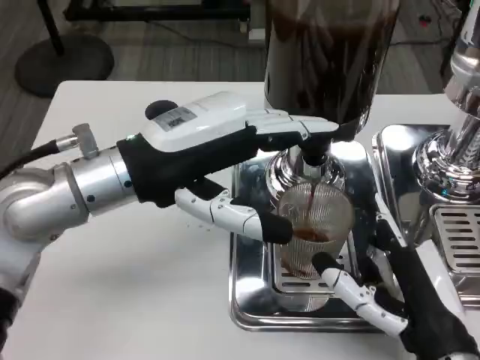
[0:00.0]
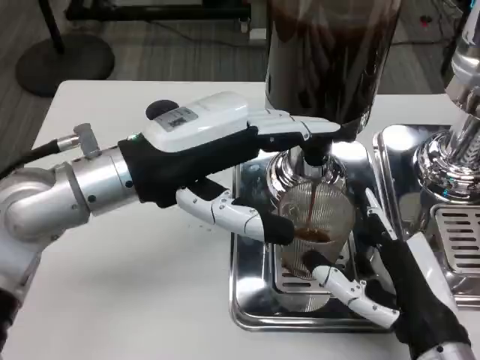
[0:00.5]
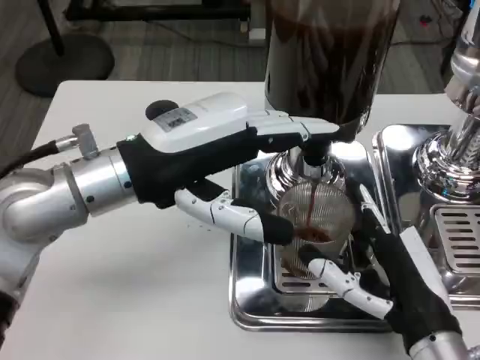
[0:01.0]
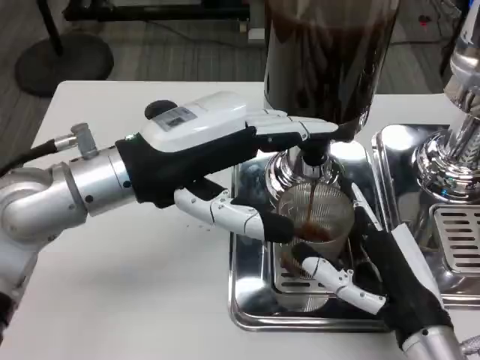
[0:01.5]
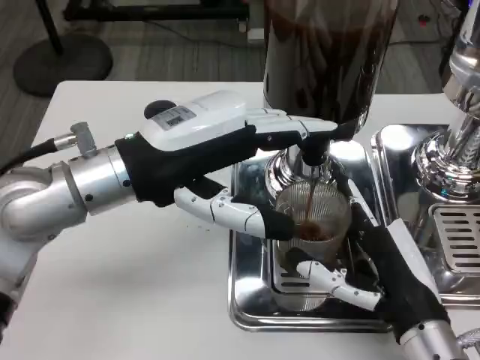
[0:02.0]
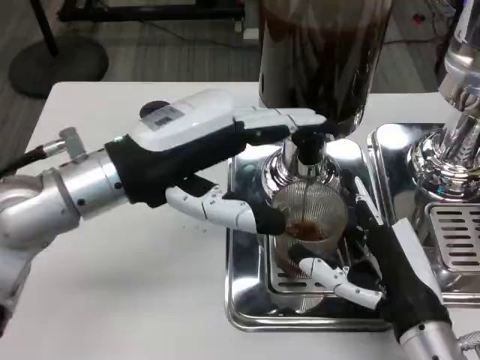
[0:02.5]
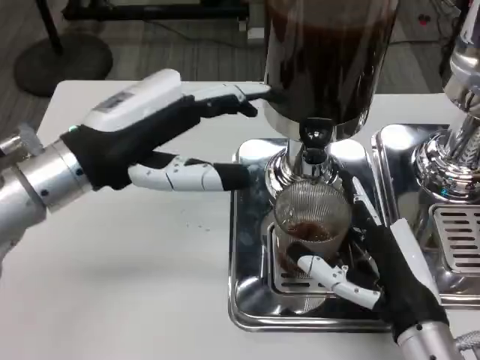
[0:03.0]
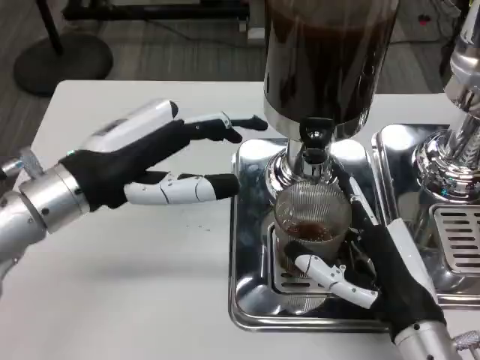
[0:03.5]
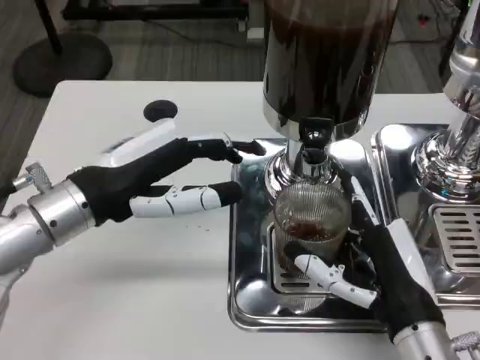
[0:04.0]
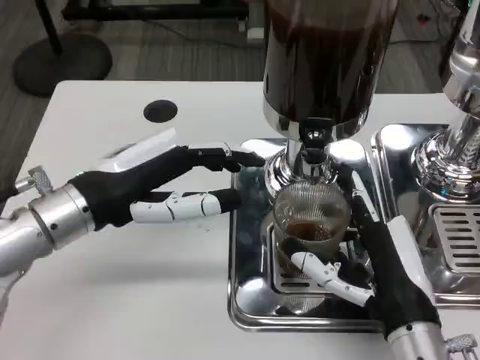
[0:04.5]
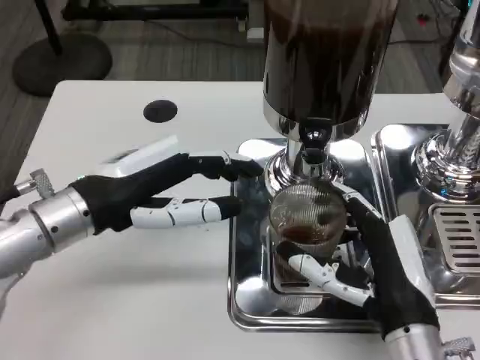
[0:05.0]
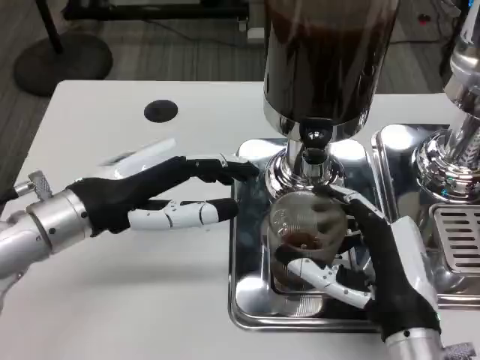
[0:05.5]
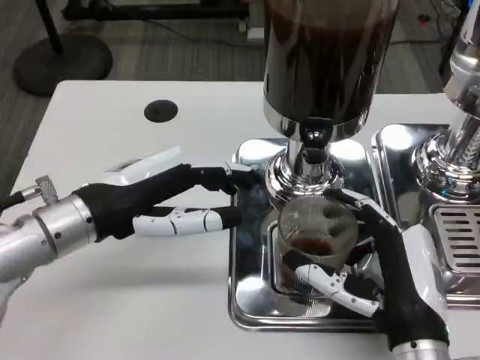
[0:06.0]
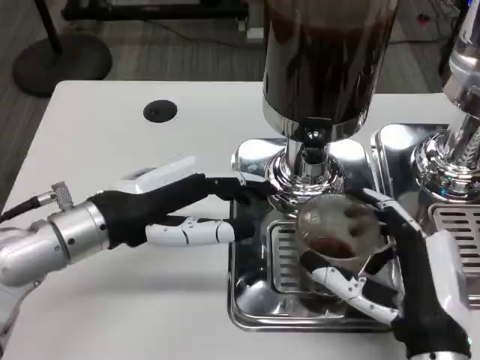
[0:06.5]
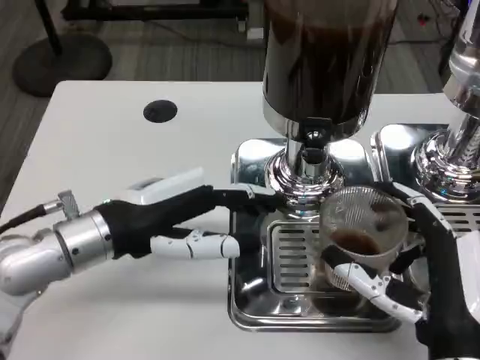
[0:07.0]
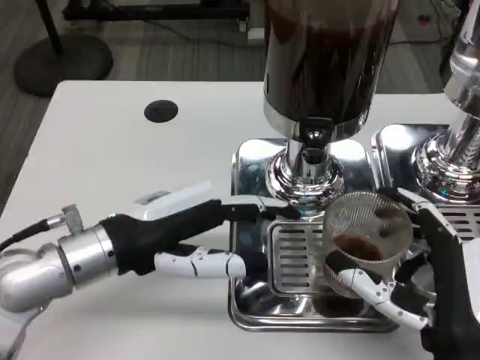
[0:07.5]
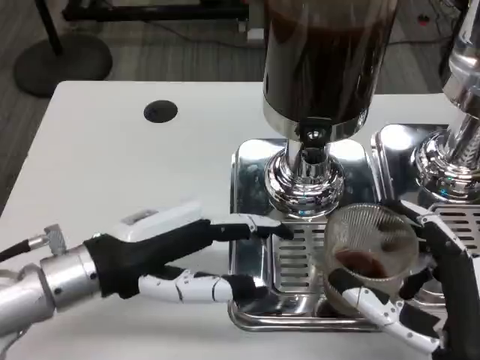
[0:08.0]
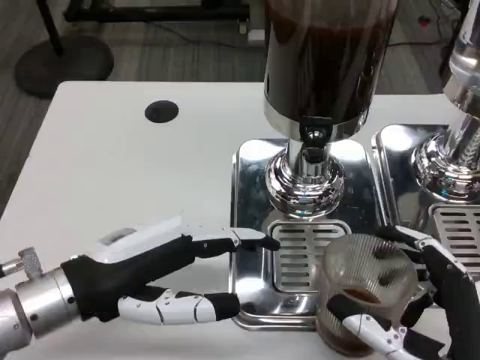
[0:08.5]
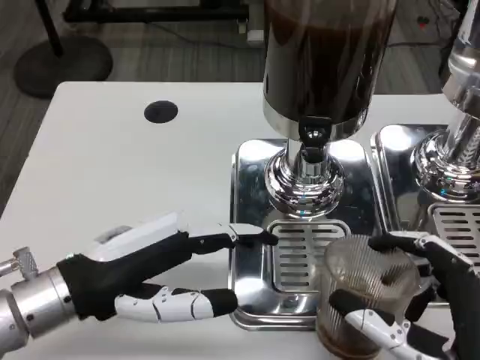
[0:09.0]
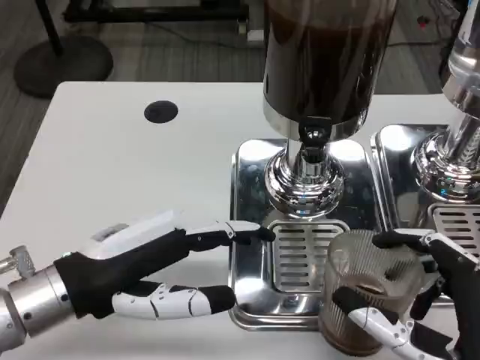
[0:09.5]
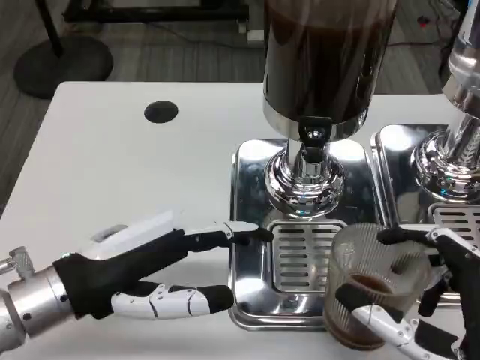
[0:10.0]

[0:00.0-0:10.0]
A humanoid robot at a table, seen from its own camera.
Task of the whole recording: Grasp the cup under the faucet to collect the drink, then remove the cup.
0:00.0 to 0:02.0: There are only small adjustments of the hands.
0:02.0 to 0:04.0: The left hand changes place by approximately 5 cm.
0:06.0 to 0:08.0: The right hand travels backward by roughly 5 cm.

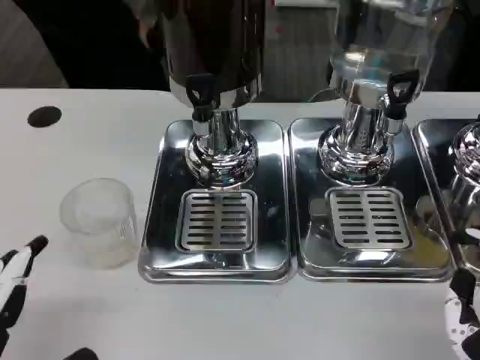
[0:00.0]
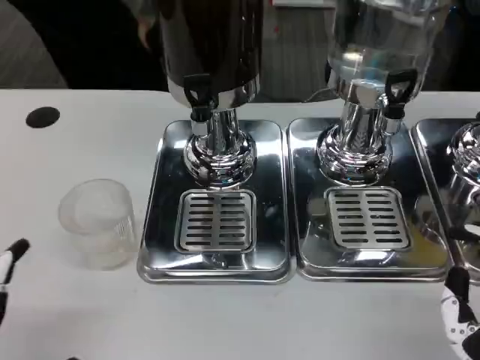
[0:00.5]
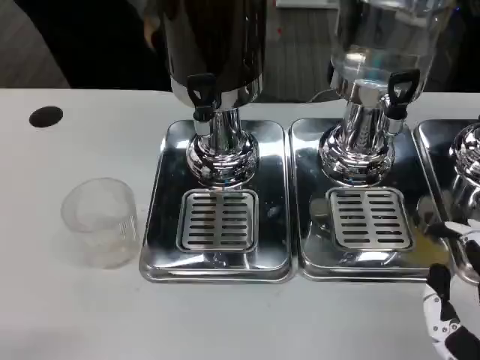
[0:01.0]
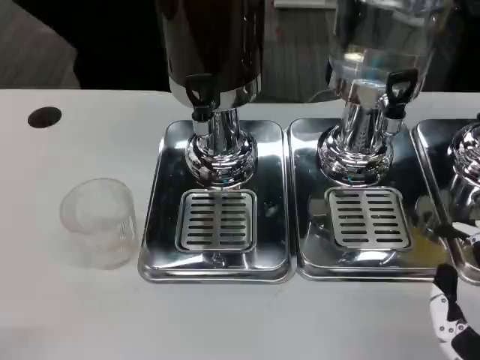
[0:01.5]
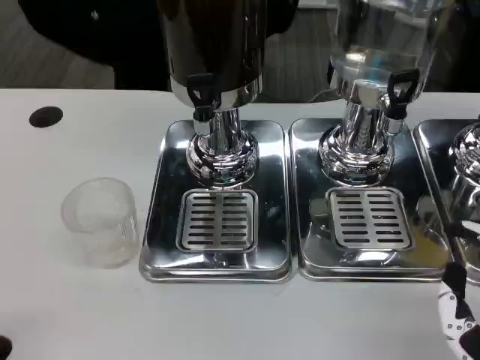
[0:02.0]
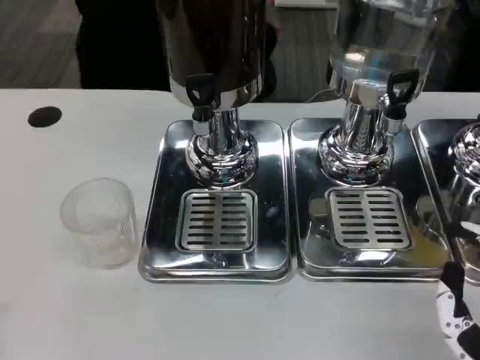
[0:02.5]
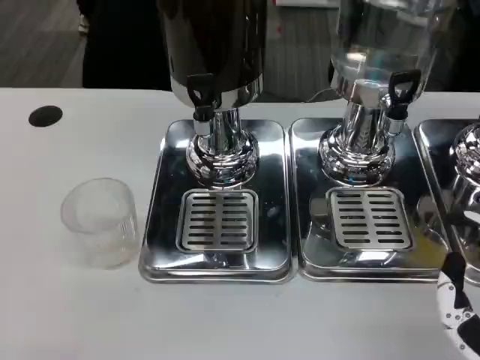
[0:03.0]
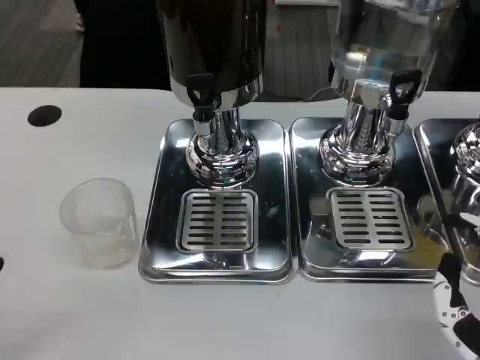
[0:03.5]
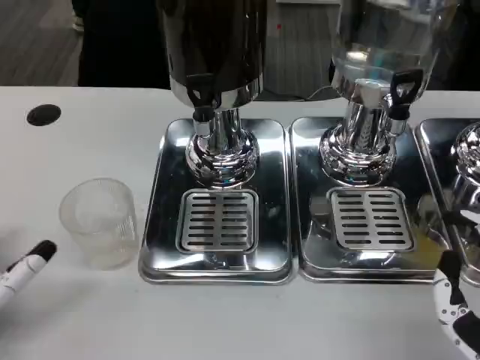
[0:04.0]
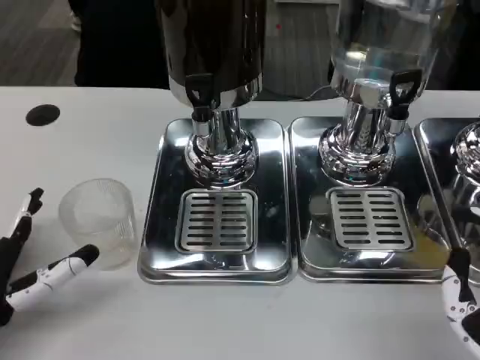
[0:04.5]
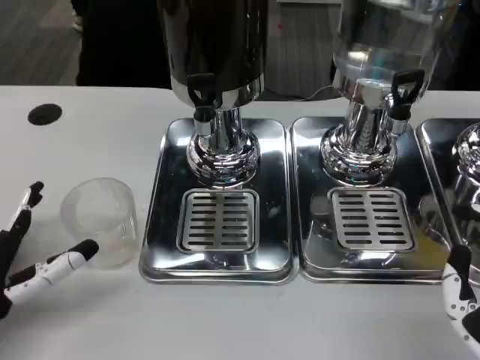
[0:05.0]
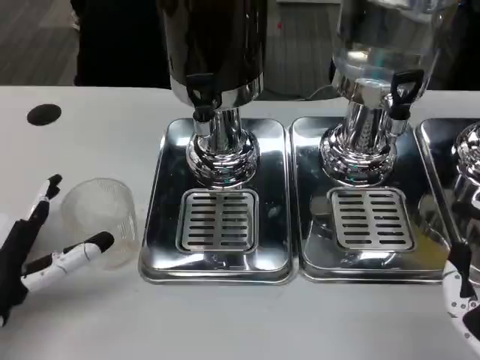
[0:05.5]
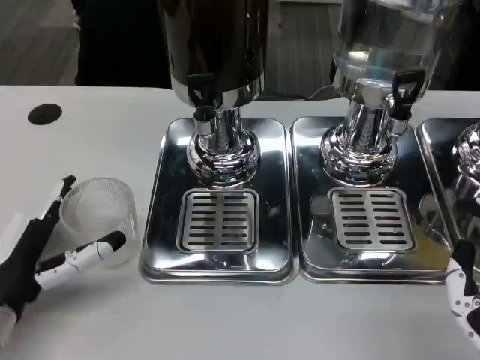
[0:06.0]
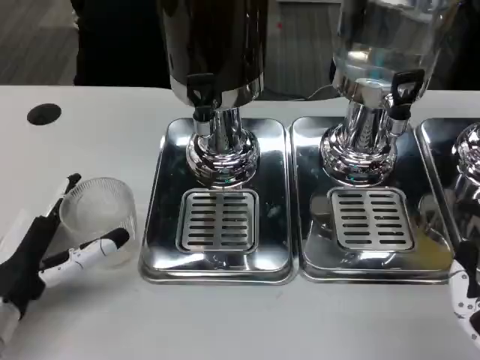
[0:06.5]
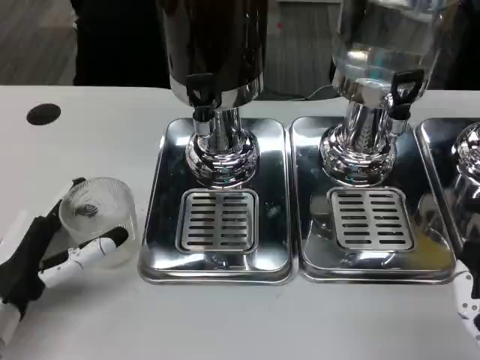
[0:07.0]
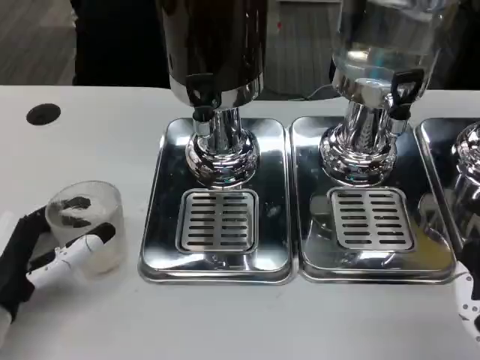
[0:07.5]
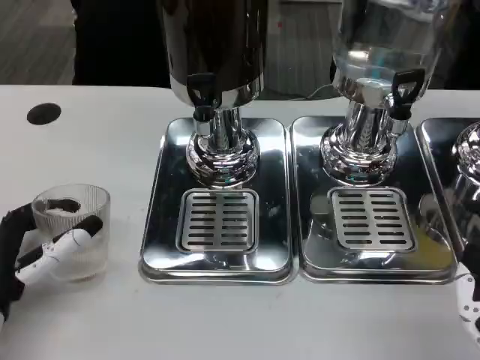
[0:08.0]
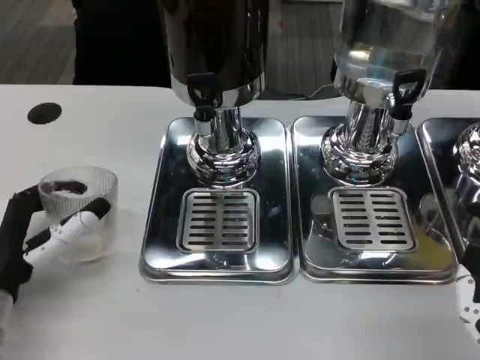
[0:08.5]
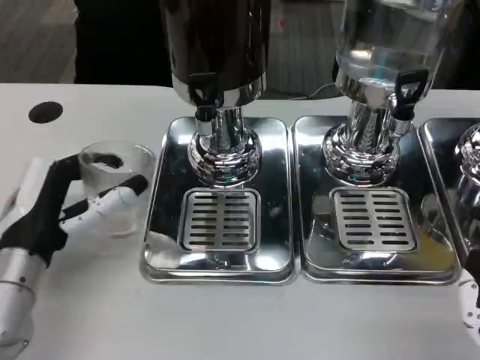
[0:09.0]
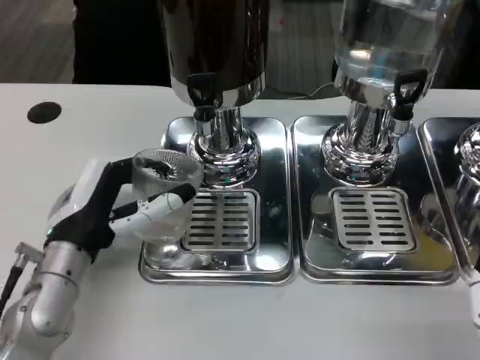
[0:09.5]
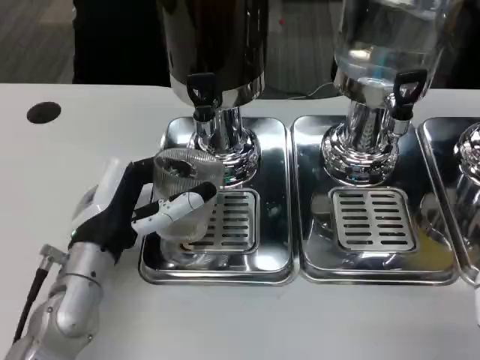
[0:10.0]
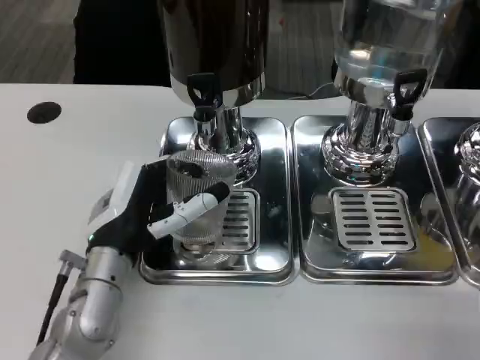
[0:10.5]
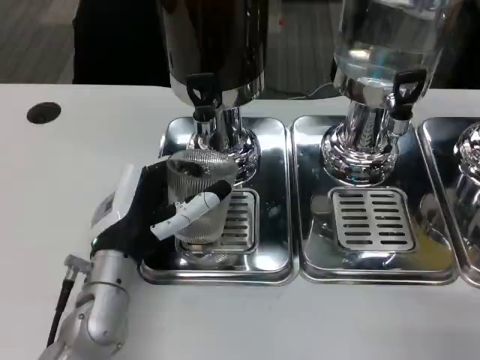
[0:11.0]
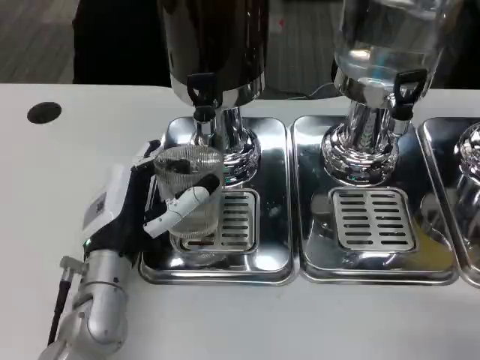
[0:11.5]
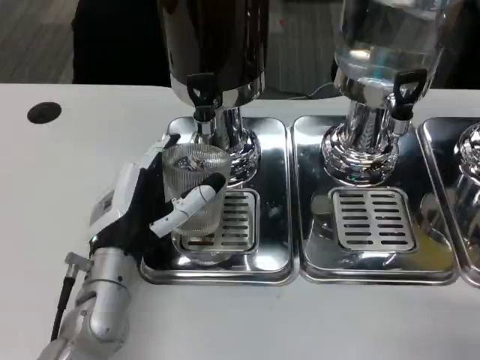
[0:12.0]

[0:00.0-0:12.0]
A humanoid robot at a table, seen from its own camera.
Task of the whole recording: Grasp the cup under the faucet to collect the drink, then remove the cup.
0:02.0 to 0:04.0: The left hand moves forward, roughly 15 cm.
0:04.0 to 0:06.0: The left hand moves roughly 5 cm.
0:06.0 to 0:08.0: The hands stay close to where they were, moving slightly.
0:08.0 to 0:10.0: The left hand is displaced to the right and forward by about 10 cm.
0:10.0 to 0:12.0: The hands make only small movements.

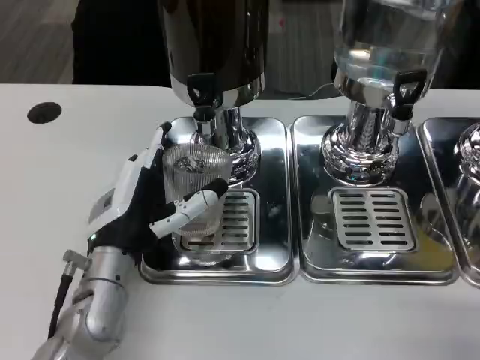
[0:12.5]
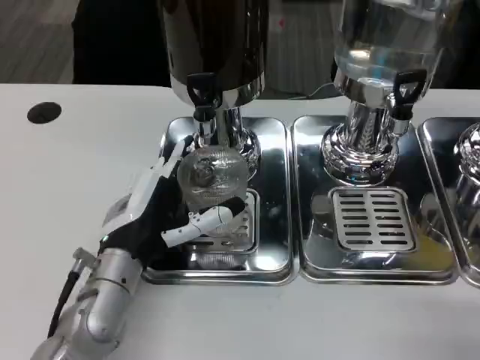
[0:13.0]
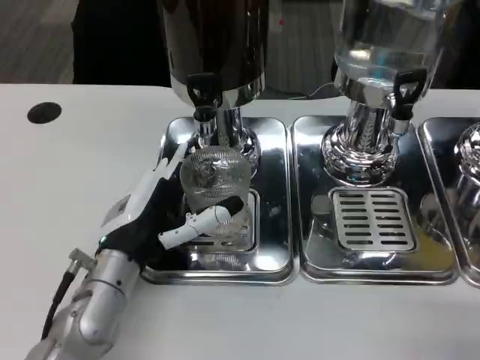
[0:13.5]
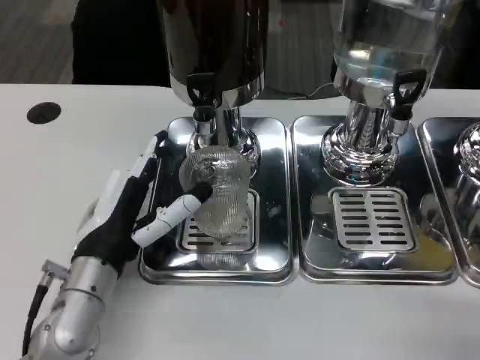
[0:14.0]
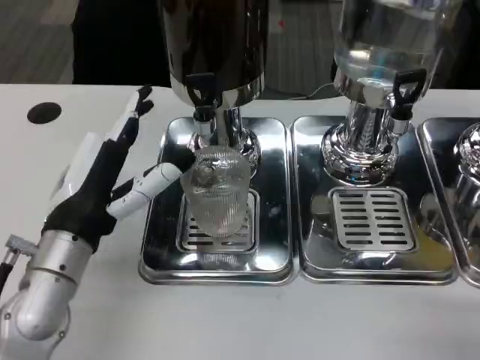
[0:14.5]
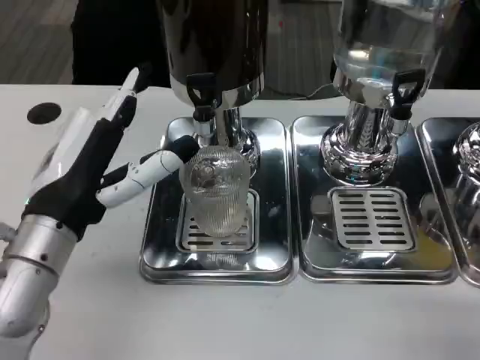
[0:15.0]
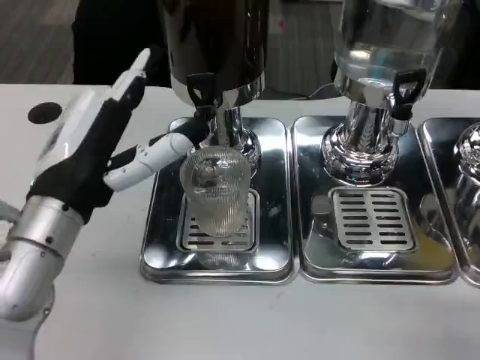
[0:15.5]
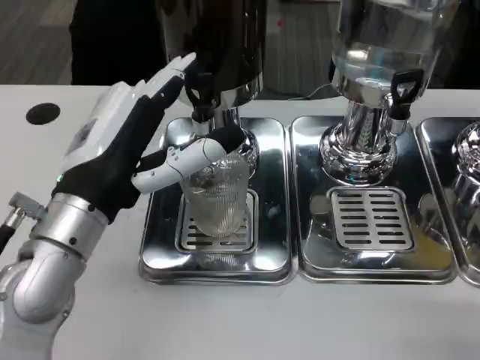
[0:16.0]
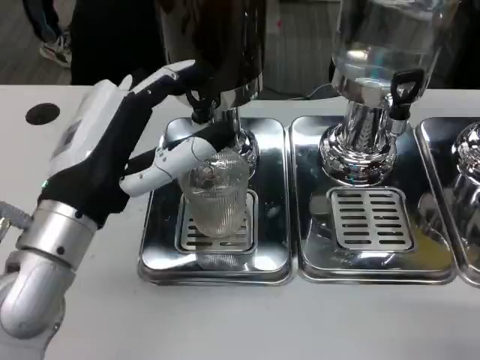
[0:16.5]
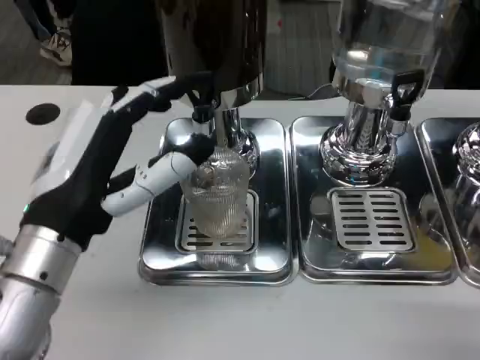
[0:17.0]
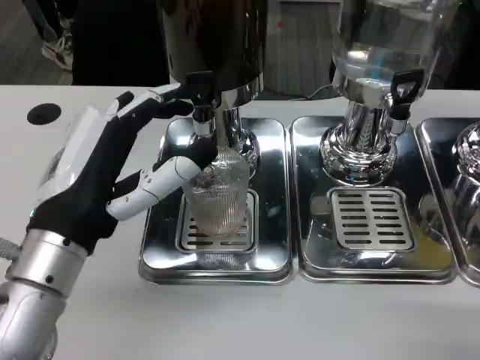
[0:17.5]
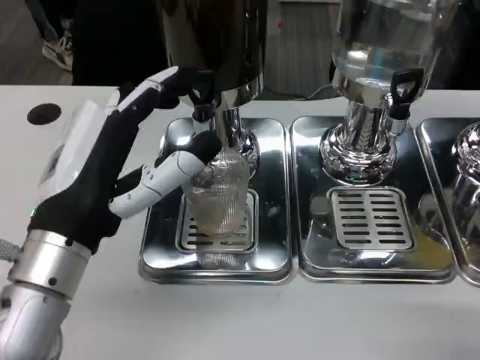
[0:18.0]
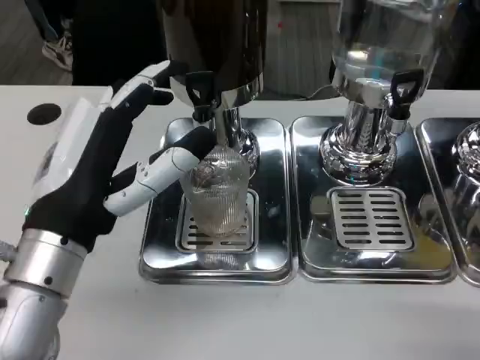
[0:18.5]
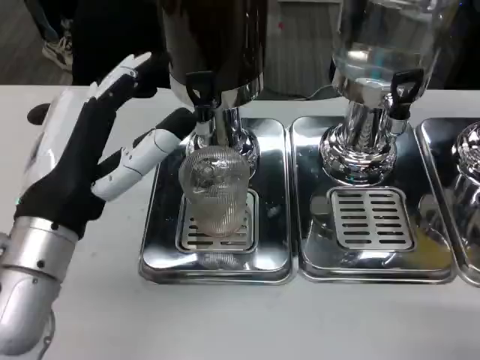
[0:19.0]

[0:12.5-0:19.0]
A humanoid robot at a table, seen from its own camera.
Task of the whole recording: Grasp the cup under the faucet to collect the drink, then remove the cup.
0:12.5 to 0:14.5: The left hand is displaced upward by approximately 5 cm.
0:14.5 to 0:17.0: The left hand shifts approximately 5 cm upward.
0:17.0 to 0:19.0: There are only small adjustments of the hands.
